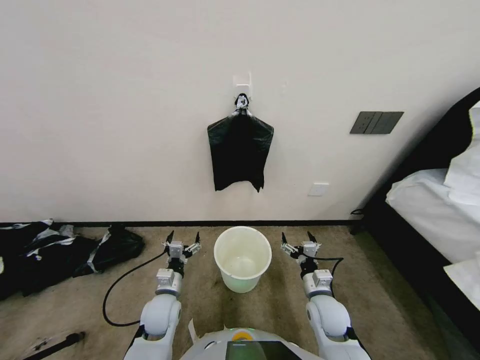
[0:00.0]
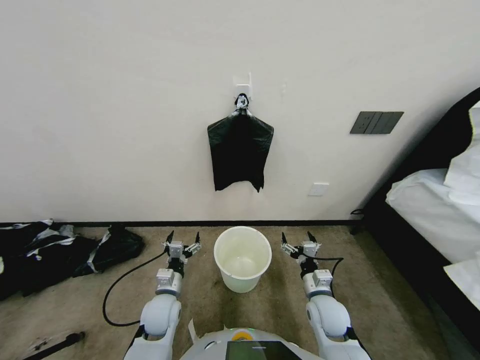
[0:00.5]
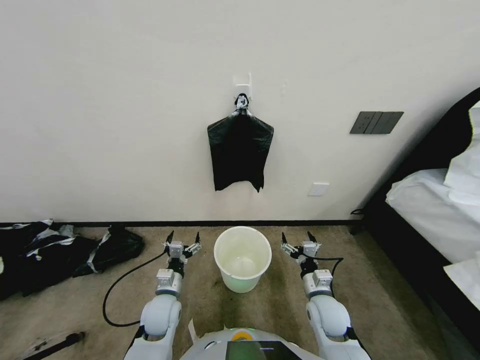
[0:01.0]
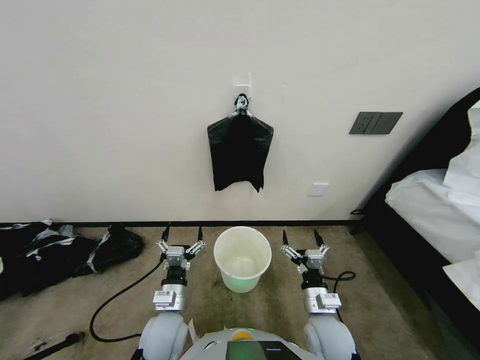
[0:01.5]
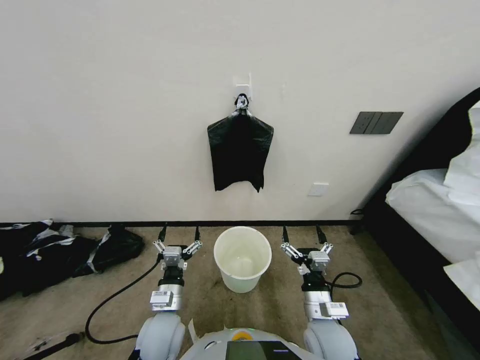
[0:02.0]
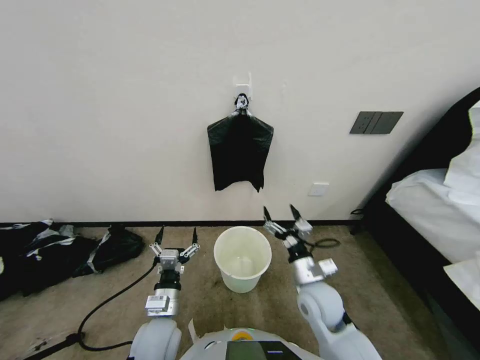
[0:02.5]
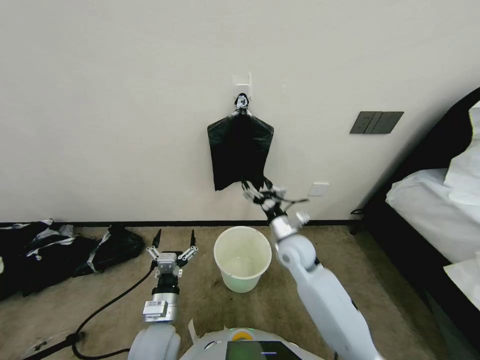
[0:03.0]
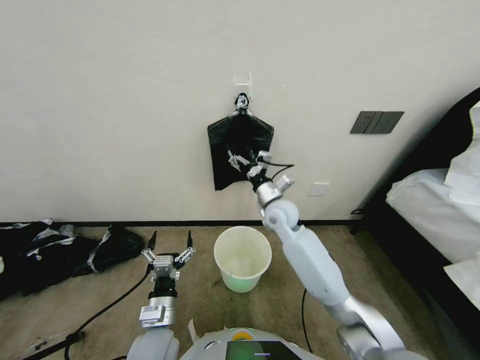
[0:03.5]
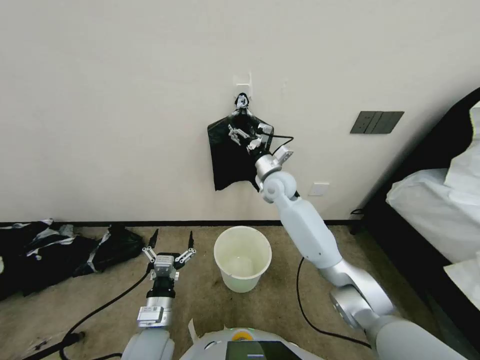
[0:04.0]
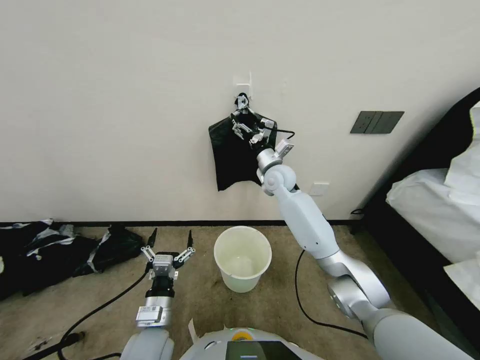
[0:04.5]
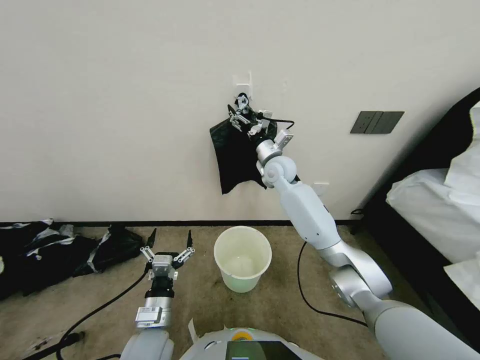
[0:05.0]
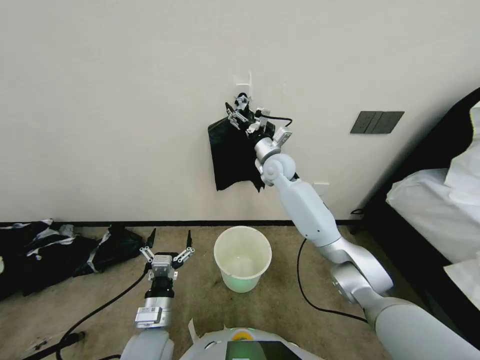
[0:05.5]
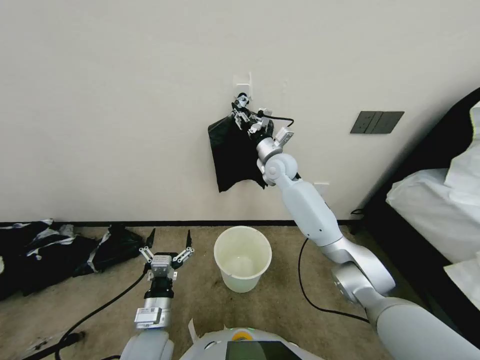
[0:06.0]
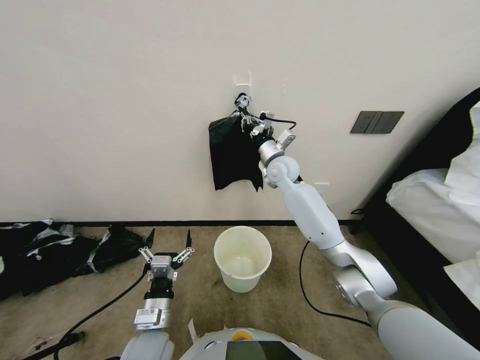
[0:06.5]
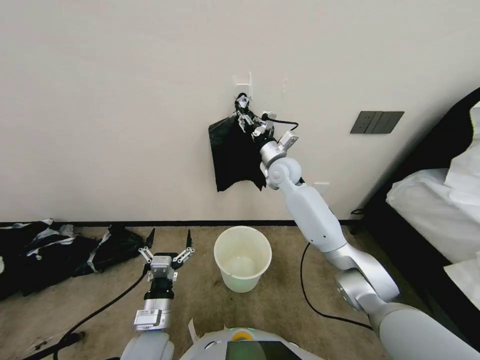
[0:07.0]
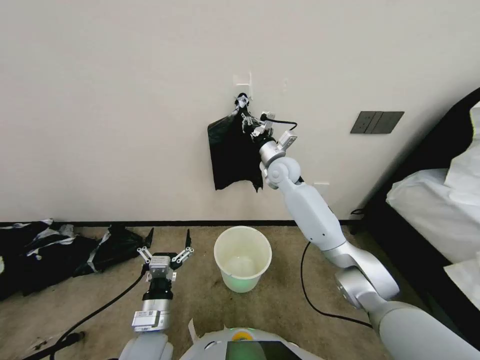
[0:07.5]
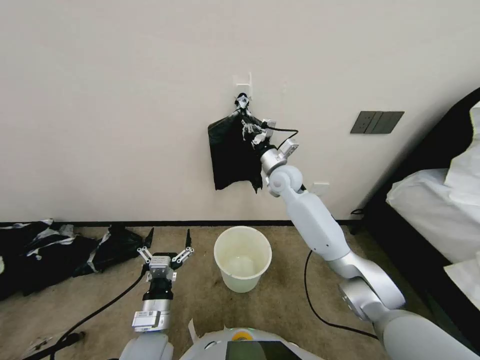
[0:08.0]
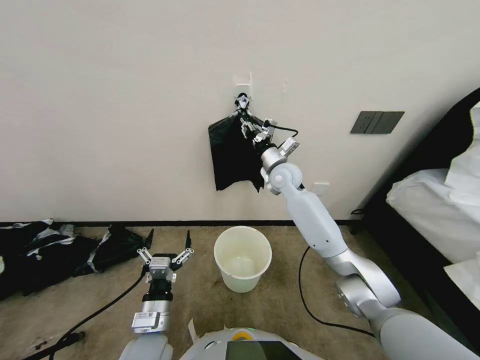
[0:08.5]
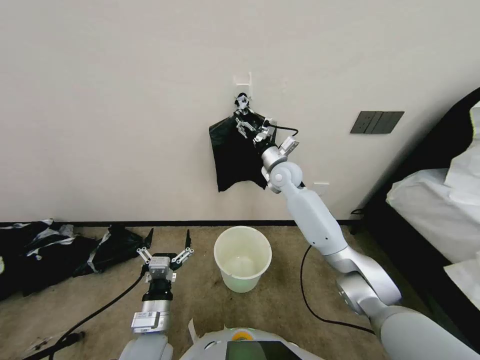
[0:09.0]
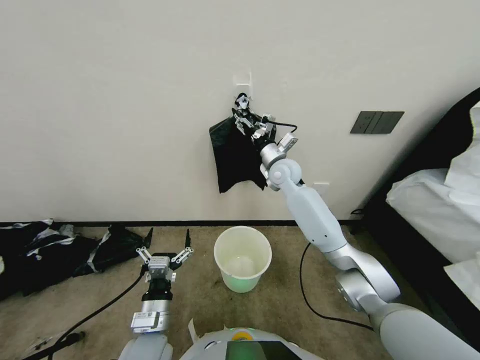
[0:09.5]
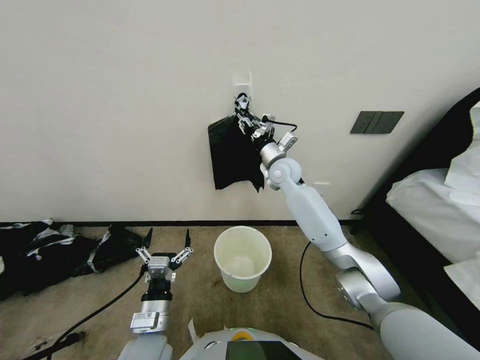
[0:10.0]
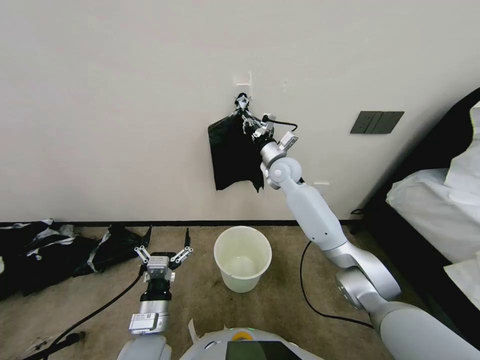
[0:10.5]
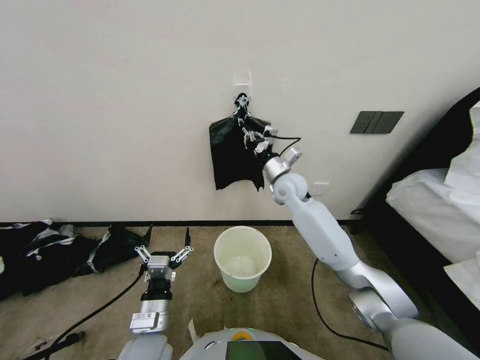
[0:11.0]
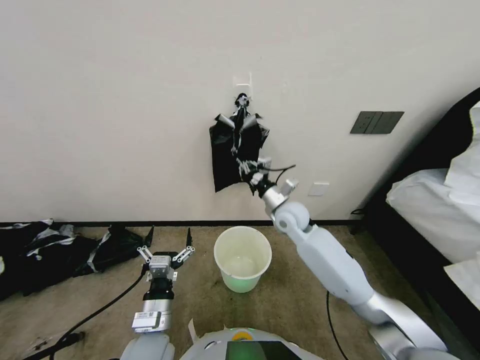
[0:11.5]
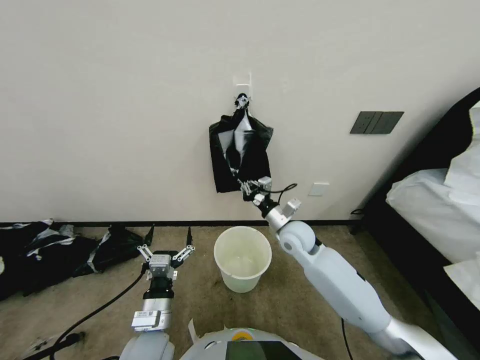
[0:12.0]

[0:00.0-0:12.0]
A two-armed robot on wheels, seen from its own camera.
Task of the whole recording: Place a trash bag onto the trash bin.
0:02.0 to 0:04.0: The right gripper goes approximately 40 cm forward and upward.
0:04.0 to 0:06.0: The right gripper heads forward, covering approximately 5 cm, and closes its fingers.
0:06.0 to 0:08.0: The right gripper closes.
0:08.0 to 0:10.0: The right gripper opens.
0:10.0 to 0:12.0: The right gripper goes some 20 cm backward and downward, and closes up.

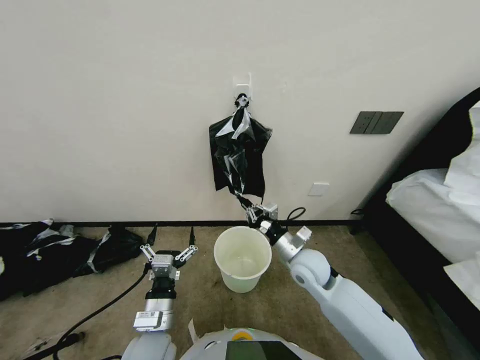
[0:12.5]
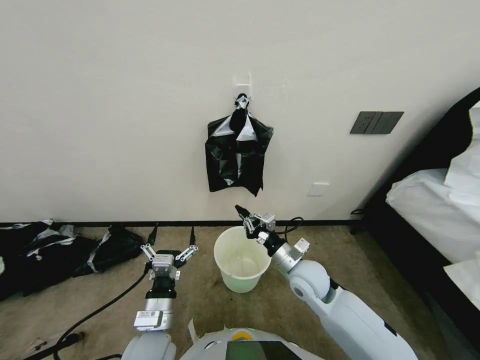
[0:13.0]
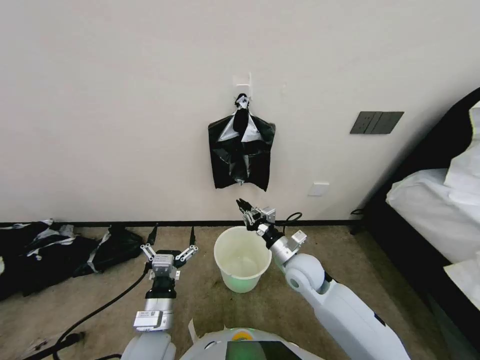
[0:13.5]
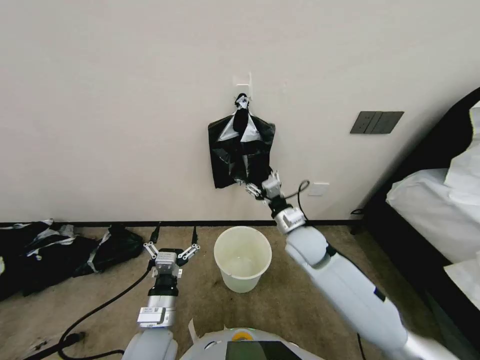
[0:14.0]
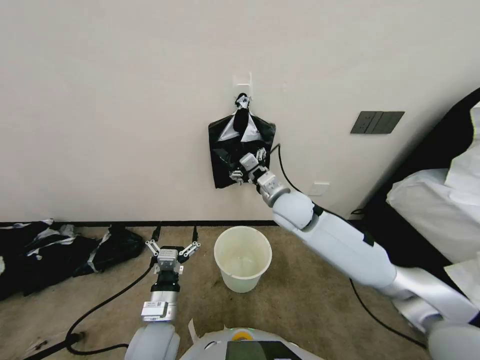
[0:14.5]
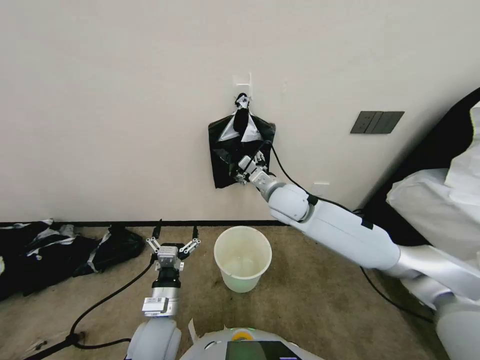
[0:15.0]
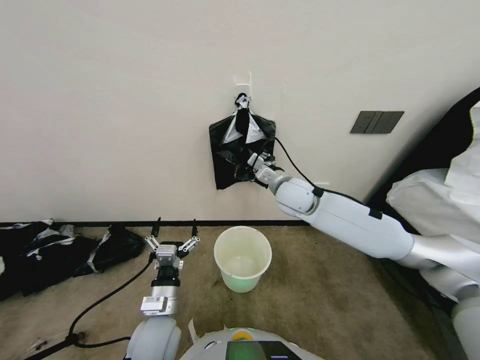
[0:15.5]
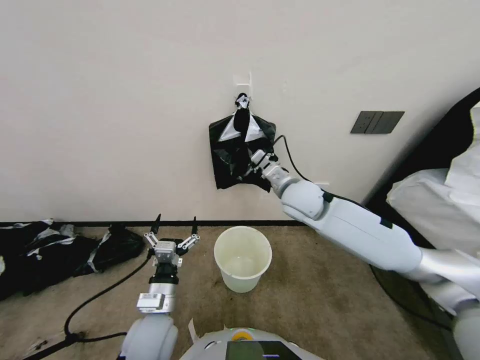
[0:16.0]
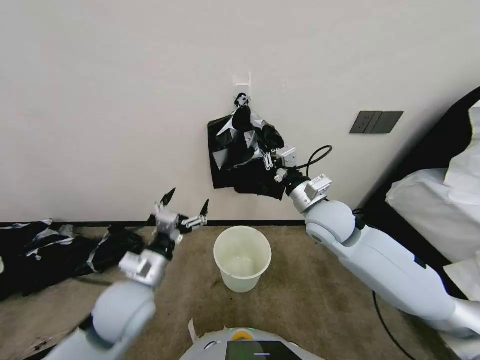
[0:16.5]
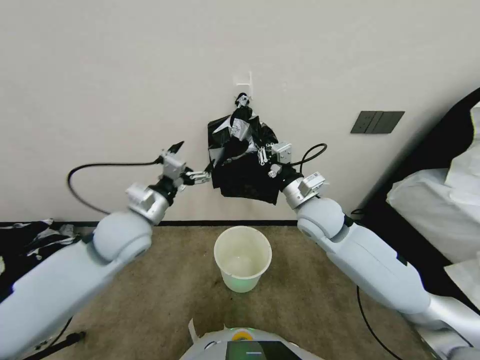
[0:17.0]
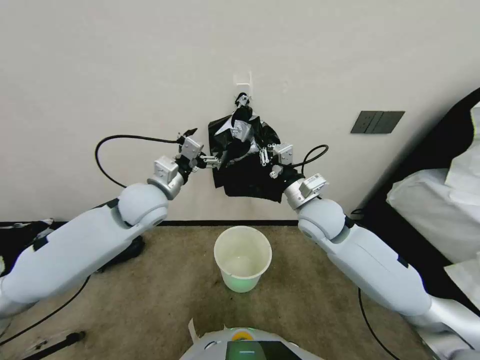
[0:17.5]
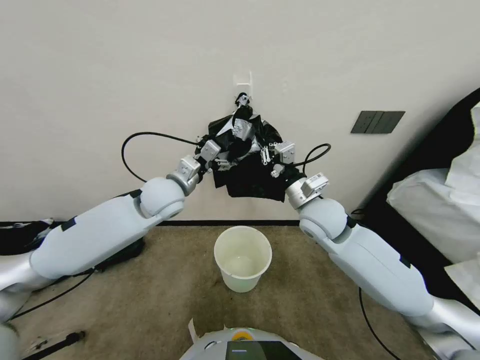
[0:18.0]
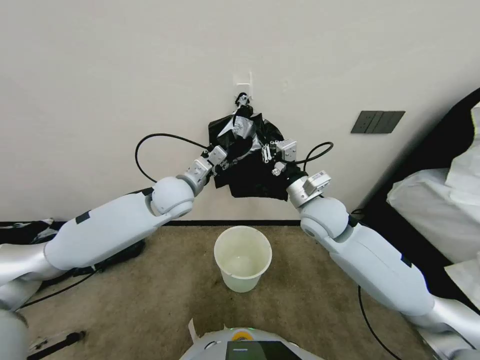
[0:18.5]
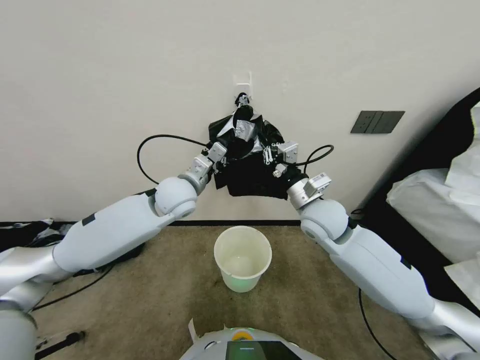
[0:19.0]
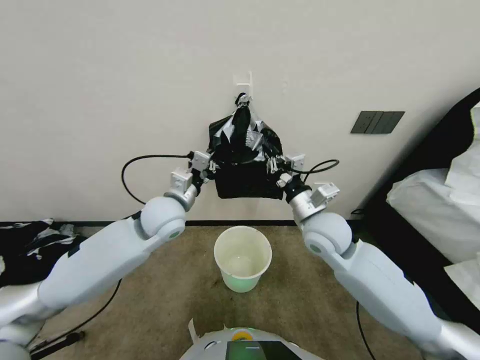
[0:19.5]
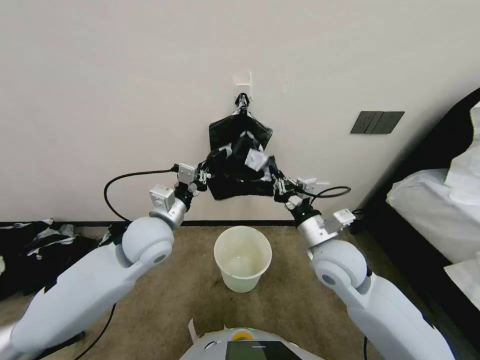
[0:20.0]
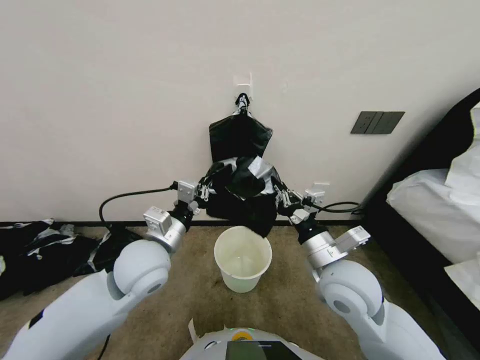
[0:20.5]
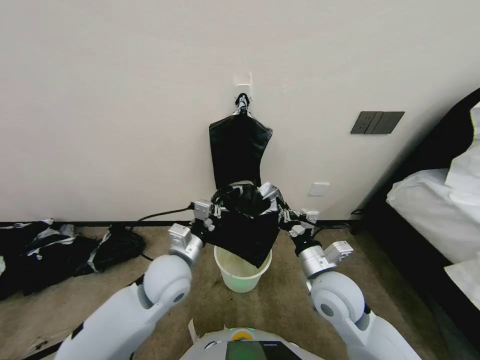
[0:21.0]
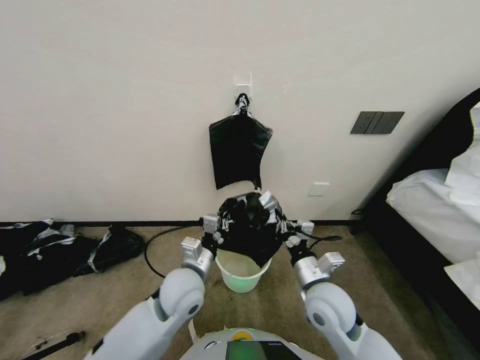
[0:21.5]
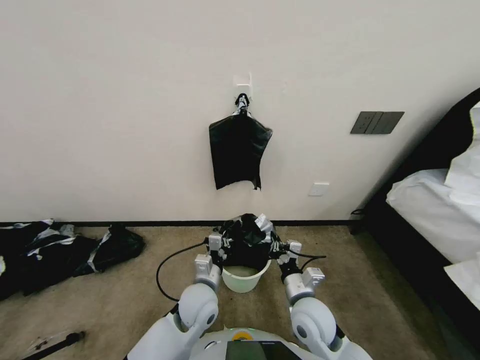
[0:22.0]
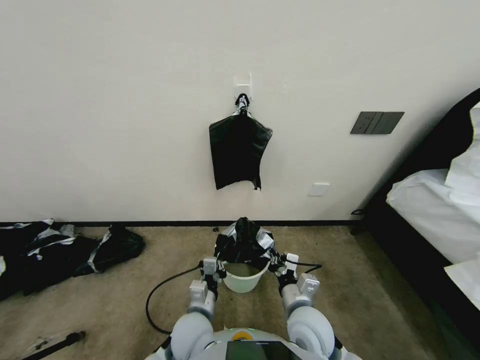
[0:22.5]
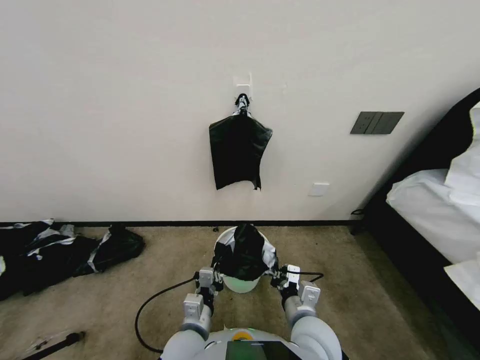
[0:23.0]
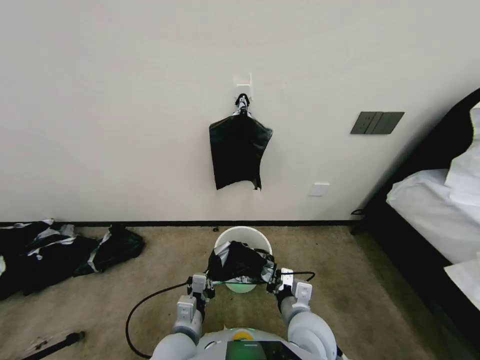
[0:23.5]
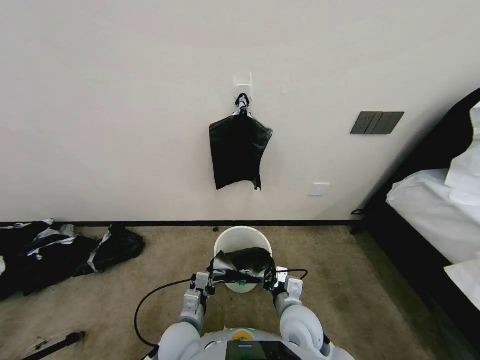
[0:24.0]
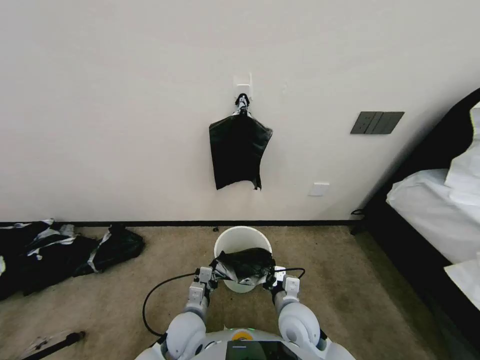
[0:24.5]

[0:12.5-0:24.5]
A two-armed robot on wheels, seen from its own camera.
Task of the whole recording: Place a trash bag onto the trash bin.
0:12.5 to 0:14.5: The right gripper goes approximately 15 cm upward, forward and to the left, and opens its fingers.
0:14.5 to 0:16.5: The right gripper goes some 5 cm to the right, and closes up. Meanwhile the left gripper shifts approximately 10 cm upward.
0:16.5 to 0:18.5: The left gripper moves forward and upward, approximately 25 cm, and closes its fingers.
0:18.5 to 0:20.5: The two grippers go about 15 cm backward. The left gripper closes.
0:20.5 to 0:22.5: The left gripper shifts some 20 cm downward and to the right. Meanwhile the right gripper shifts some 15 cm downward.

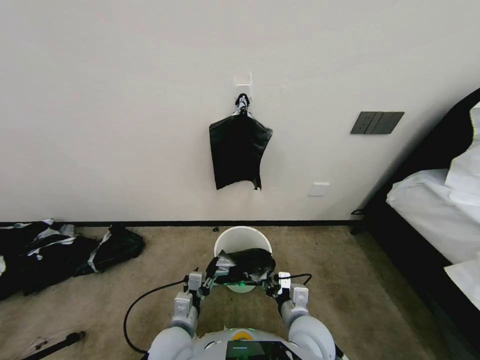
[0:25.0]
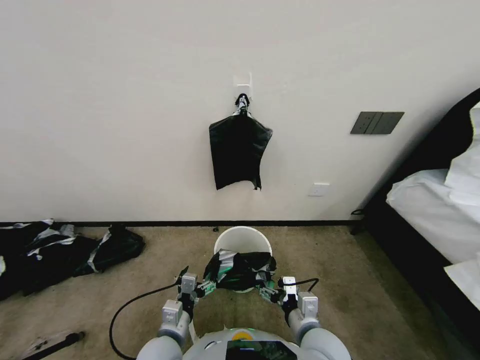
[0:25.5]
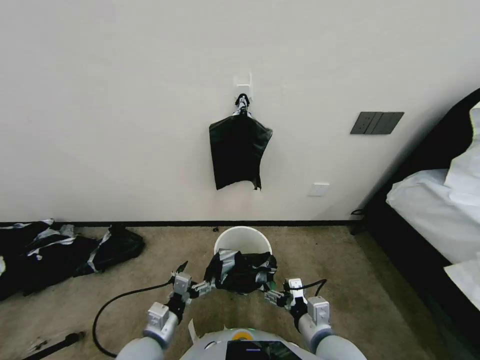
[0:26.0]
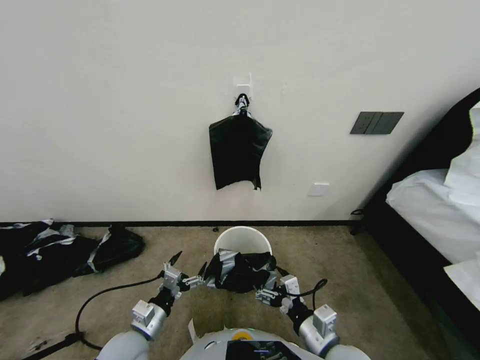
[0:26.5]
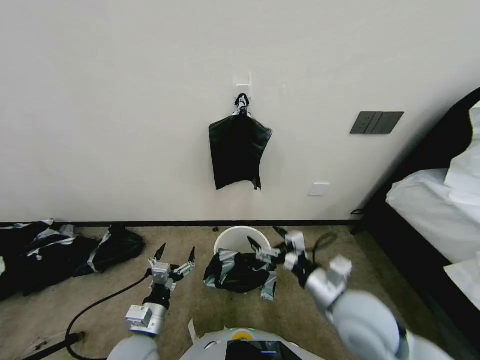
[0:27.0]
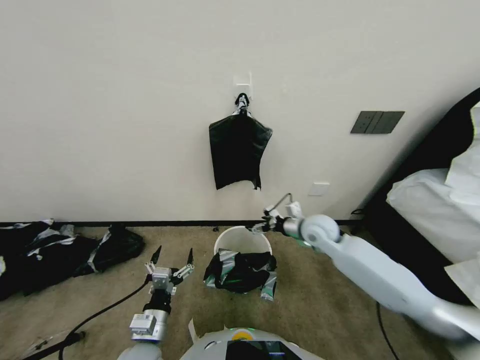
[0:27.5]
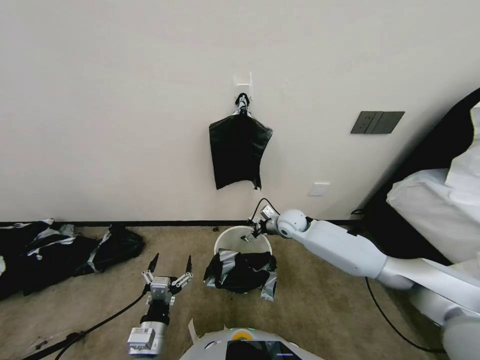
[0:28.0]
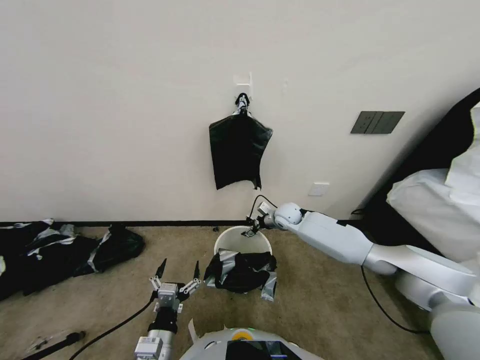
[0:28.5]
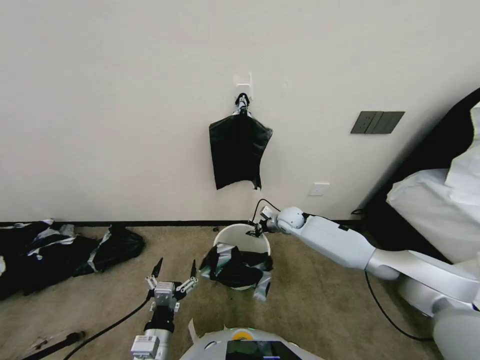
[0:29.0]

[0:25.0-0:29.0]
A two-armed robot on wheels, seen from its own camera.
Task of the whole recording: Place a trash bag onto the trash bin.
0:25.0 to 0:27.0: The left gripper travels to the left by some 10 cm, and opens; the right gripper heads upward and to the right, covering roughly 10 cm, and opens its fingers.
0:27.0 to 0:29.0: The right gripper travels forward by roughly 35 cm, and closes, while the left gripper goes about 5 cm backward.
